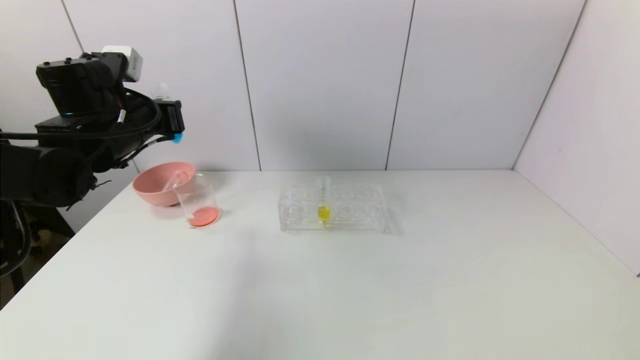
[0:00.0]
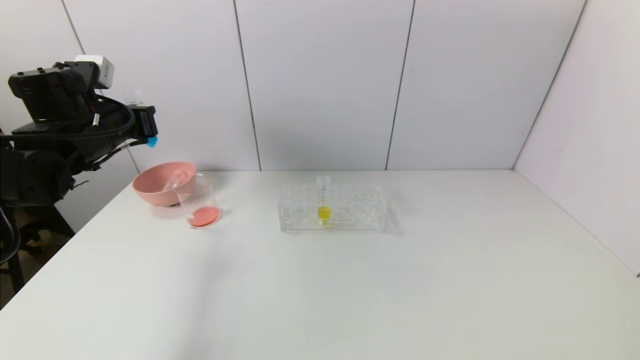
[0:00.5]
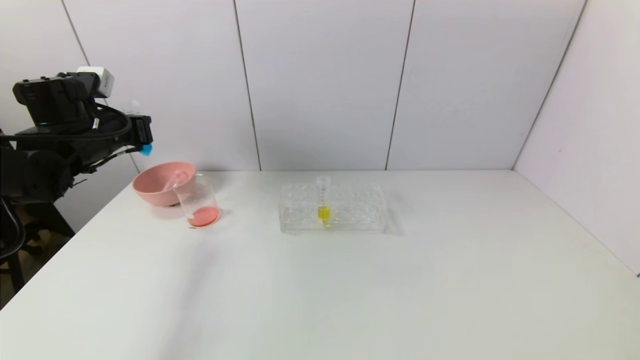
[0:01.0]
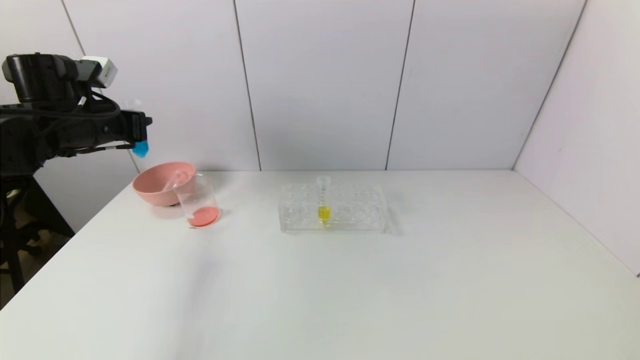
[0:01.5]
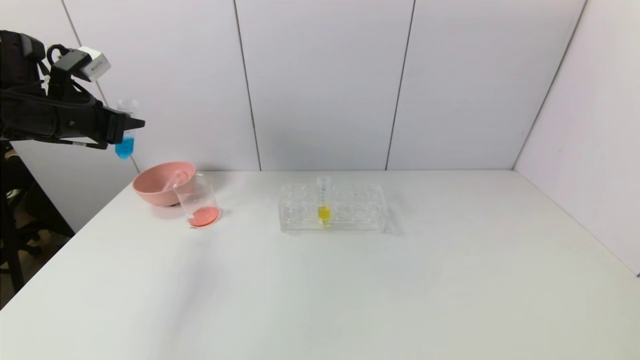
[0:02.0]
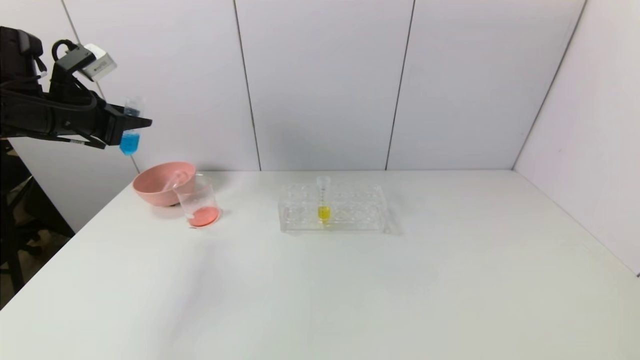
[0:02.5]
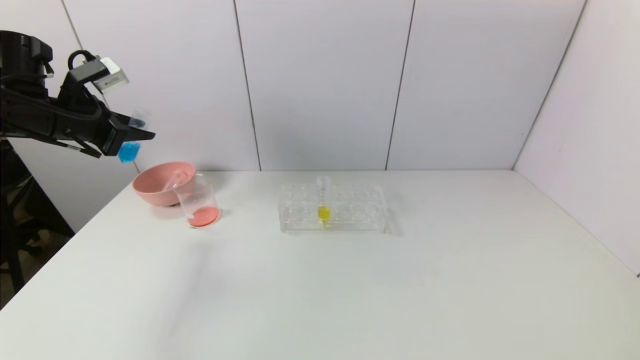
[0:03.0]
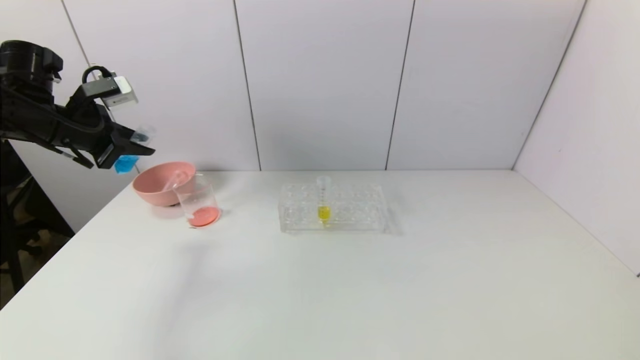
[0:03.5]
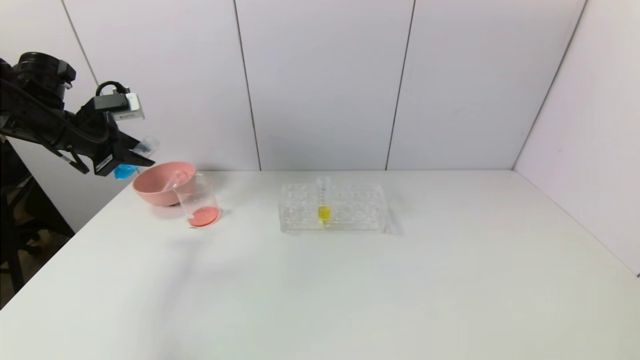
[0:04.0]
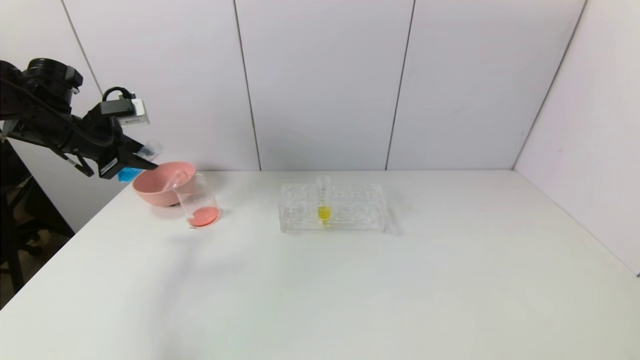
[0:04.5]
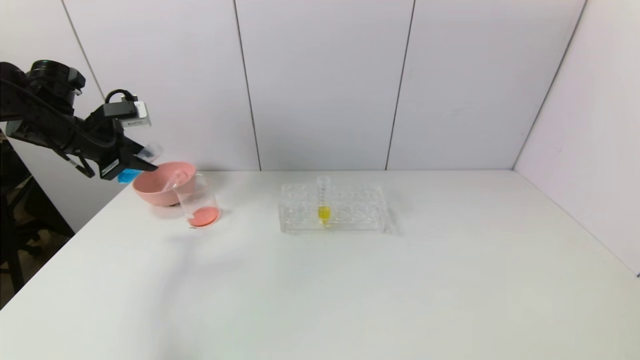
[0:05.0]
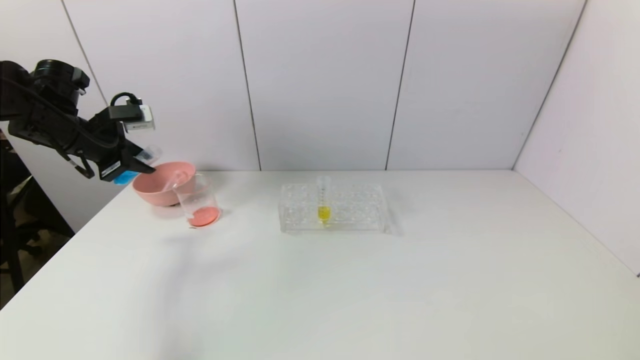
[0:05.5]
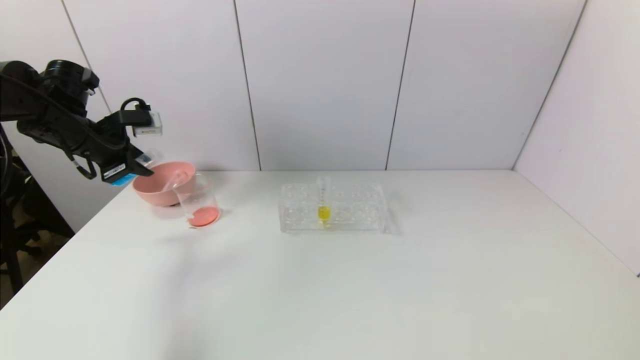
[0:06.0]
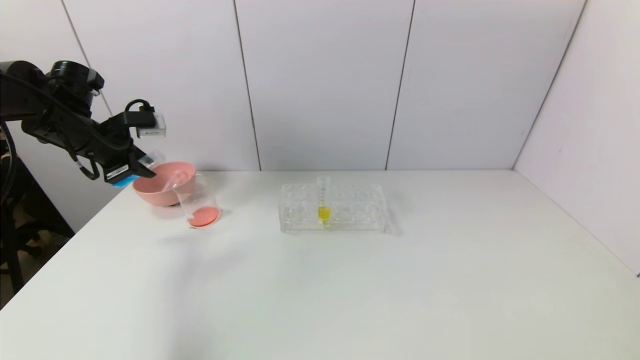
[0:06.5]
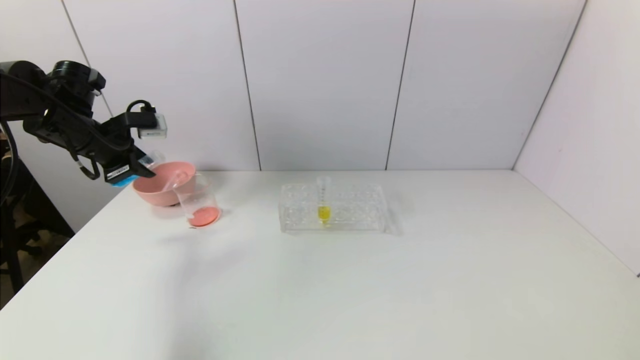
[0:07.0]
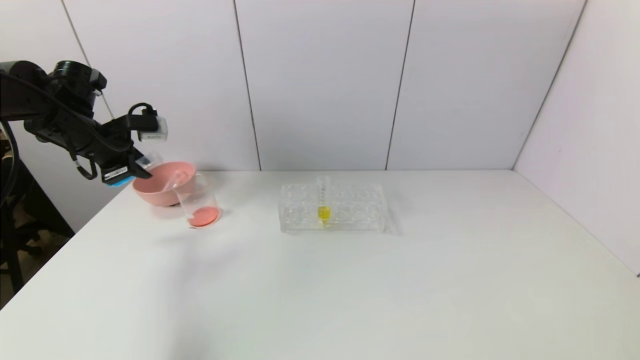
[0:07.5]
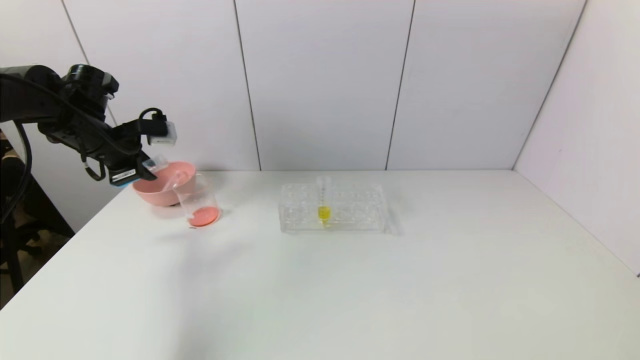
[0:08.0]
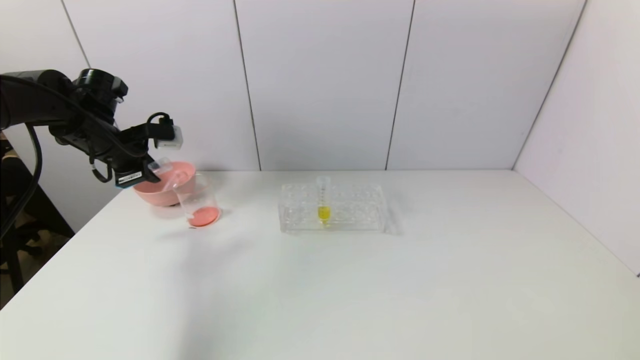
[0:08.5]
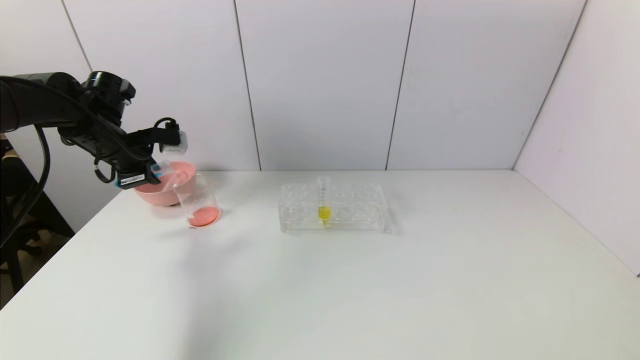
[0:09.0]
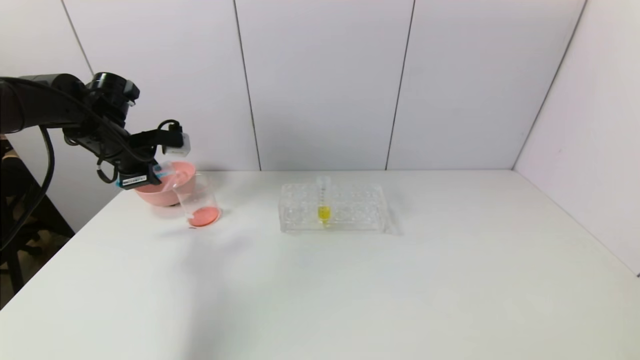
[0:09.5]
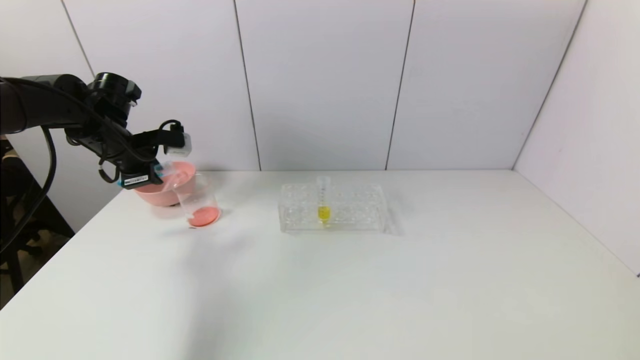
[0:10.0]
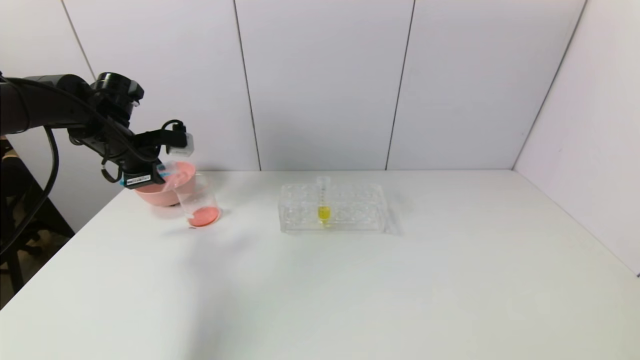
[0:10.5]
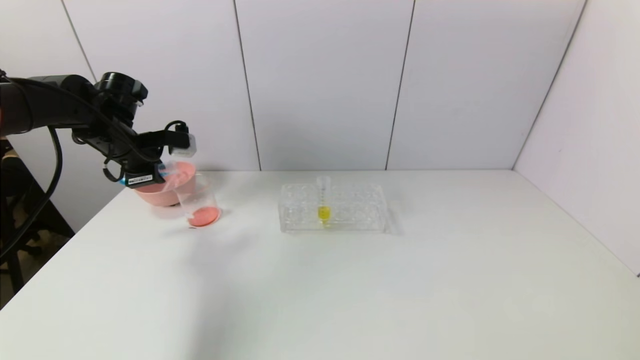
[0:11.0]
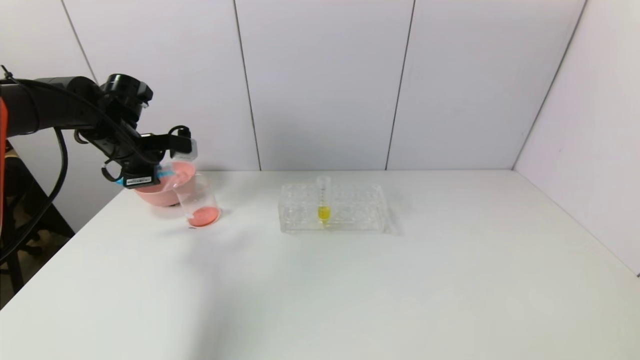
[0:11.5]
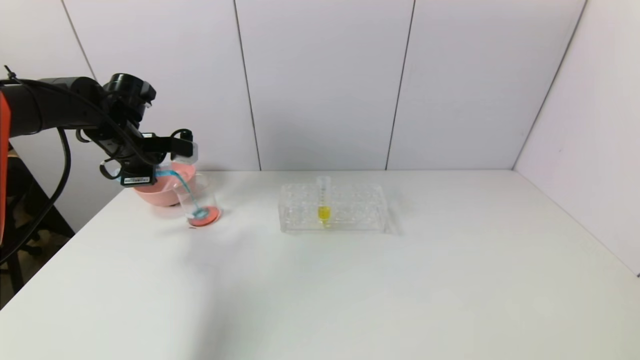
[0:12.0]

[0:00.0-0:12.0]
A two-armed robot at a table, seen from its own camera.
Task of the whole recording: pick up the test tube with red pigment and the test tube with blue pigment by grippers and pour them into the container.
0:00.0 to 0:02.0: The left gripper is displaced to the left by roughly 10 cm.
0:04.0 to 0:08.0: The grippers move only a little.
0:08.0 to 0:10.0: The grippers stay close to where they were, moving slightly.
0:10.0 to 0:12.0: The grippers move only a little.

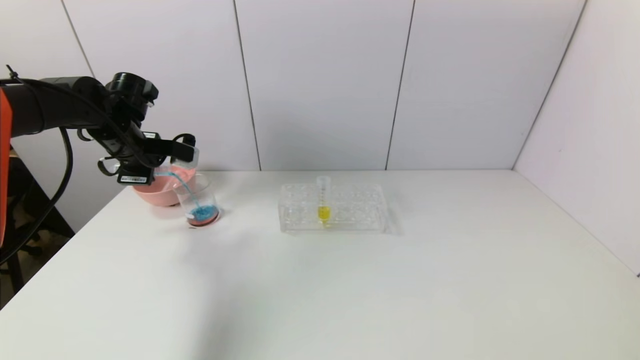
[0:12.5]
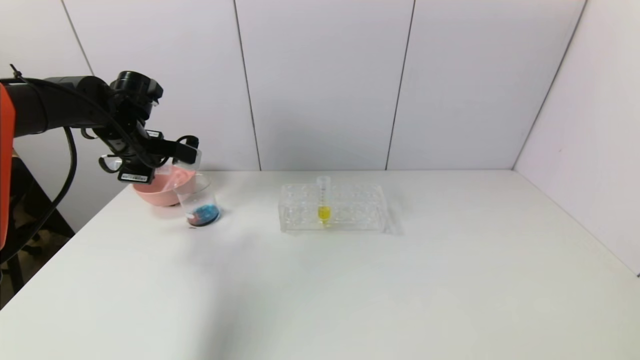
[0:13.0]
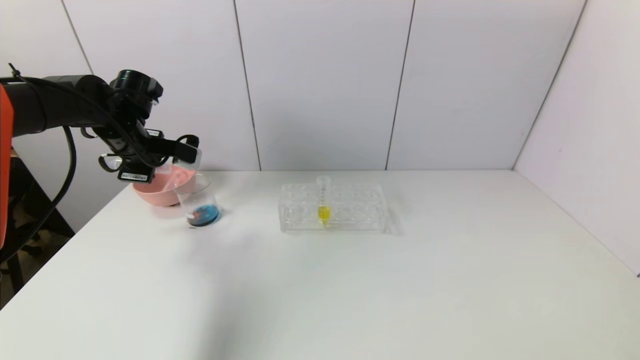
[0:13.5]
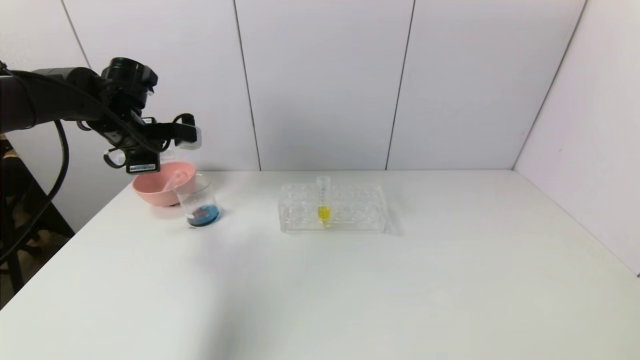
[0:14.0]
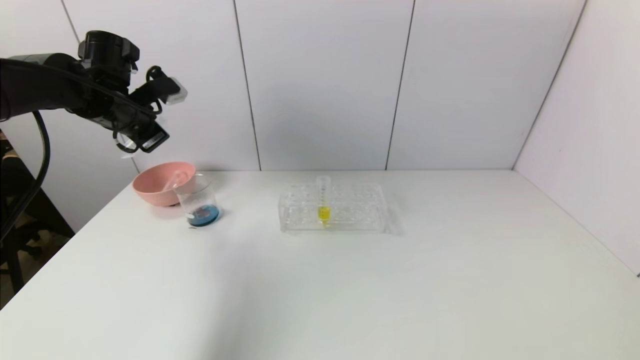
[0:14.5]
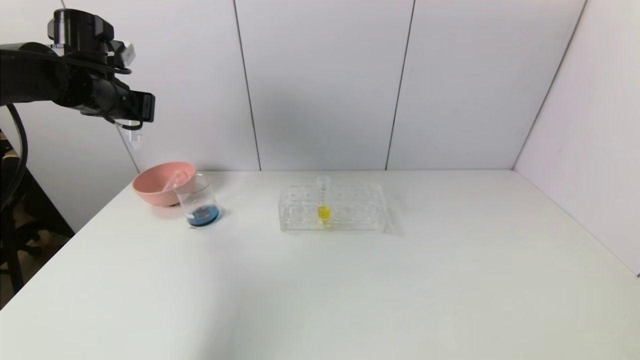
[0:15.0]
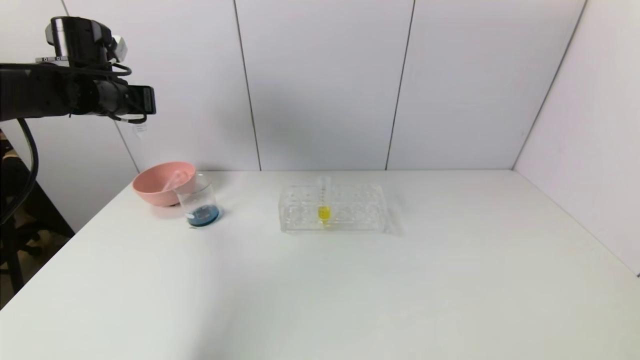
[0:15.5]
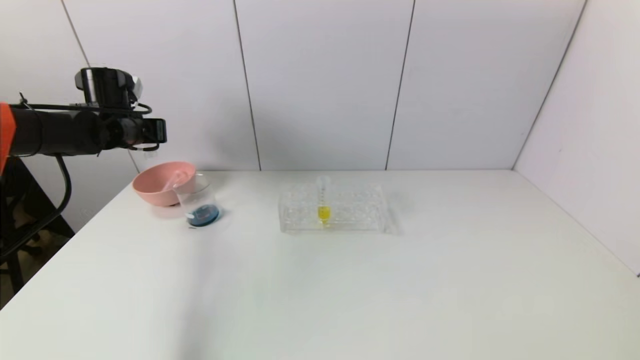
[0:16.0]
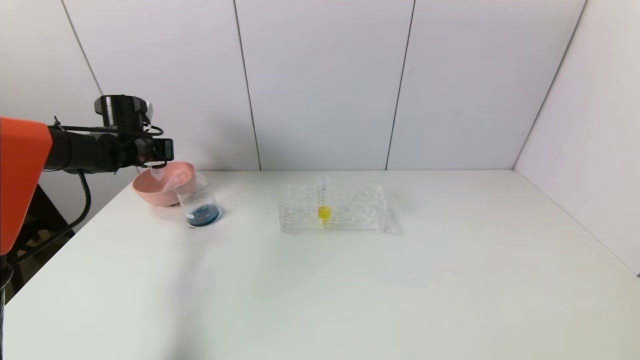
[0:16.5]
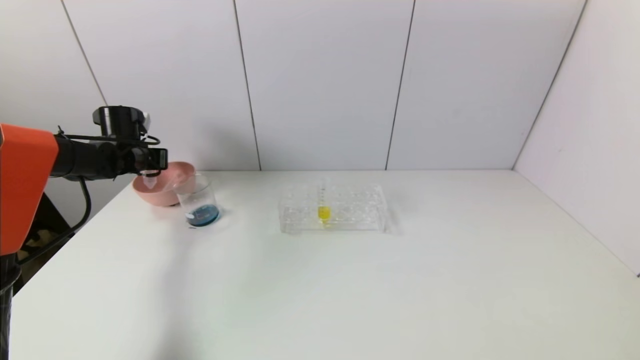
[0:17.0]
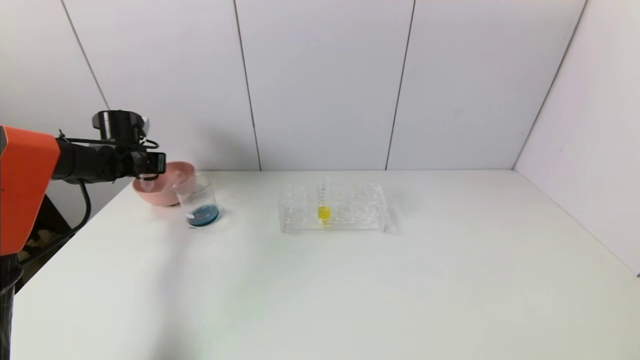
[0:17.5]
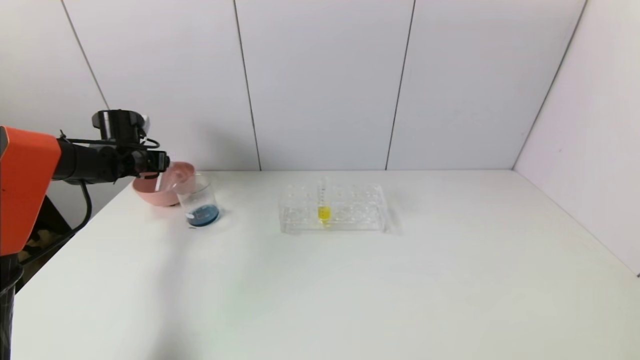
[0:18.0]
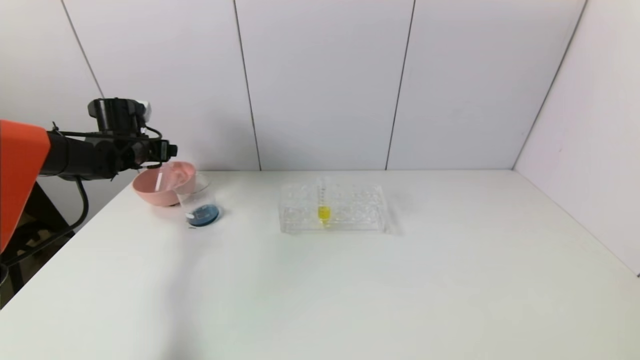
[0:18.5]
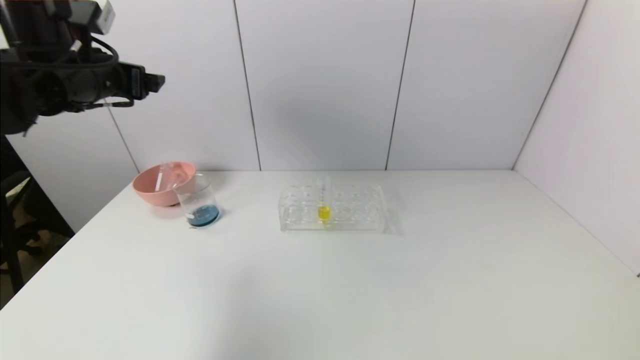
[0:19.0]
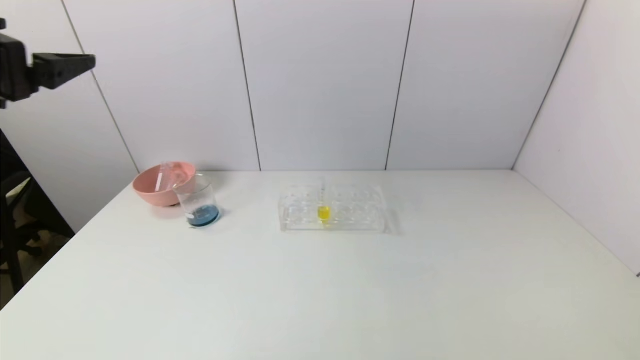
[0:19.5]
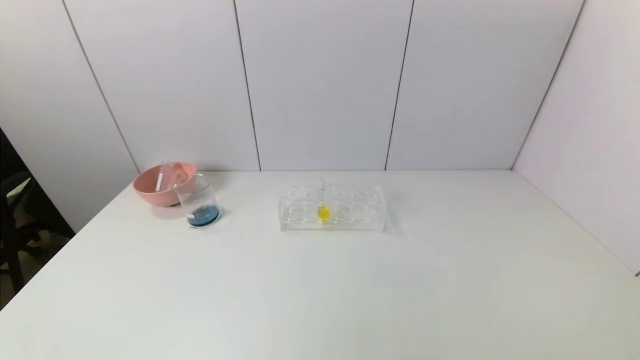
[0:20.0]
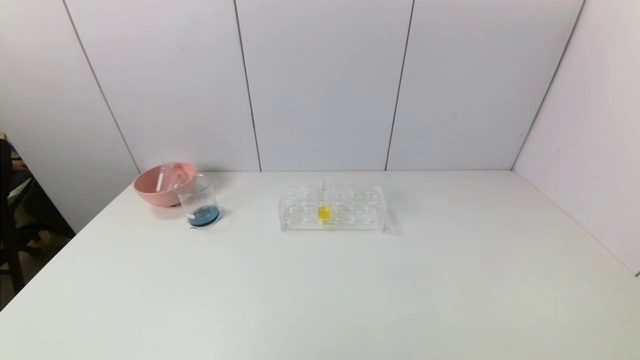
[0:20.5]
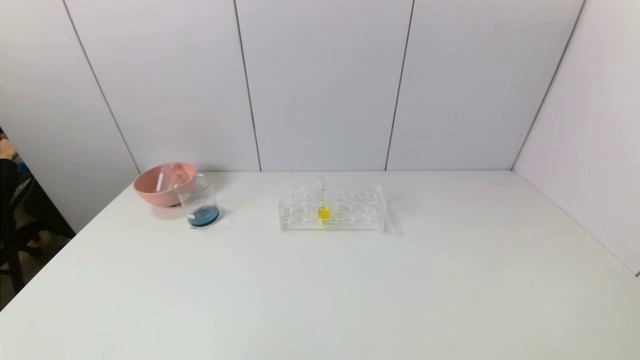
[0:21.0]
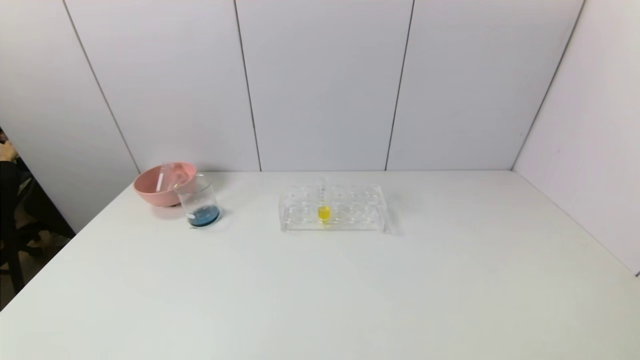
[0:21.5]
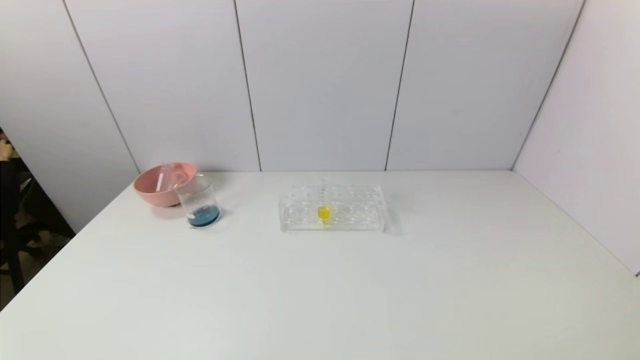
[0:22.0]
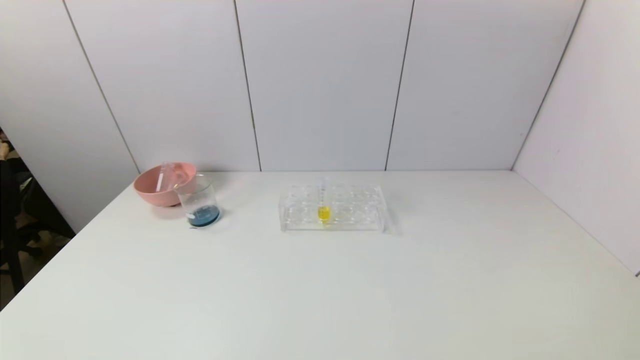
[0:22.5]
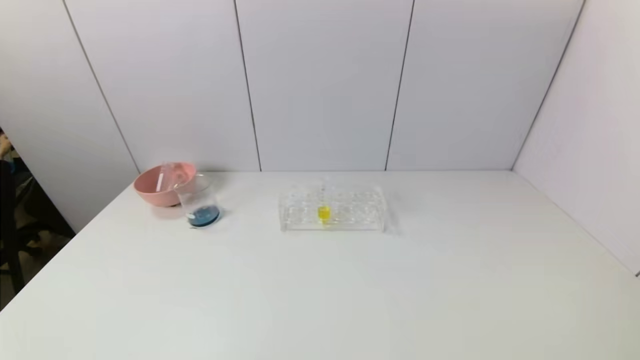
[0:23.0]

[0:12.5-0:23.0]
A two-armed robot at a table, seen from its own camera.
Task of the whole recording: pick up the test tube with red pigment and the test tube with blue pigment by grippers and pour them into the container.
Step, 0:14.5 to 0:19.0: Place the test tube into the bowl with the left gripper.
0:12.5 to 0:14.5: The left gripper shifts roughly 5 cm upward.
0:14.5 to 0:16.5: The left gripper travels downward and forward by approximately 10 cm.
0:16.5 to 0:19.0: The left gripper is displaced upward and backward by approximately 20 cm, and opens up.
0:19.0 to 0:21.0: The left gripper moves backward and downward, some 40 cm.
